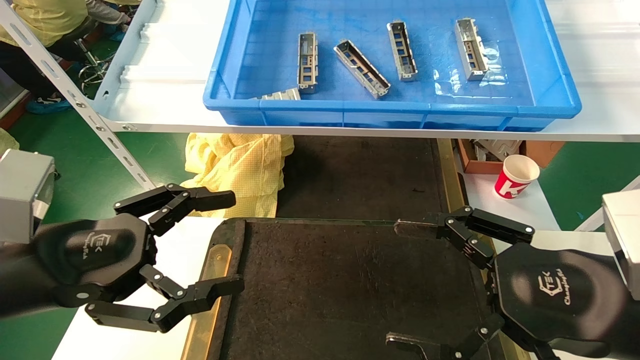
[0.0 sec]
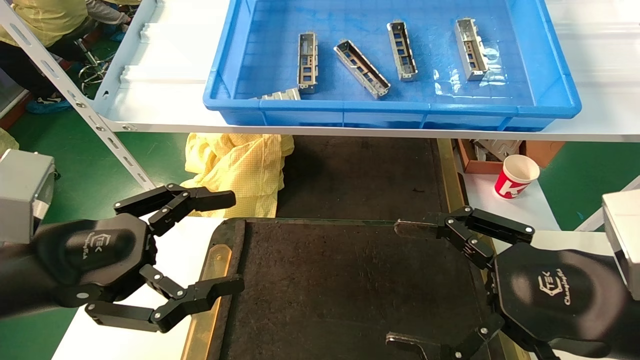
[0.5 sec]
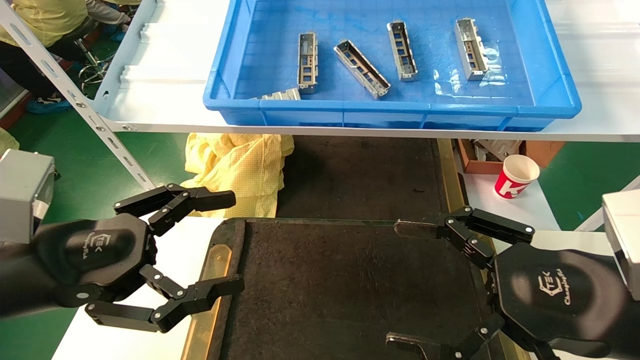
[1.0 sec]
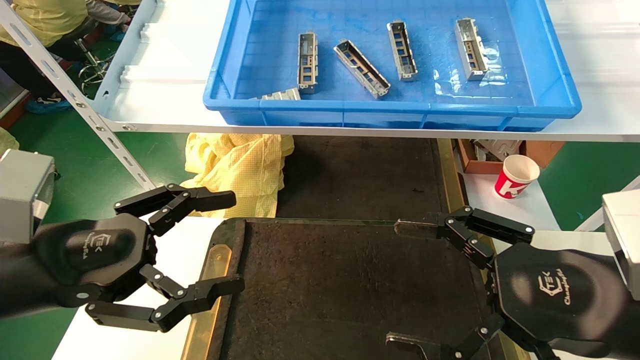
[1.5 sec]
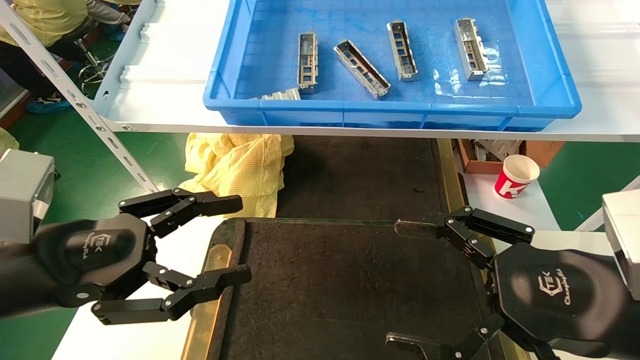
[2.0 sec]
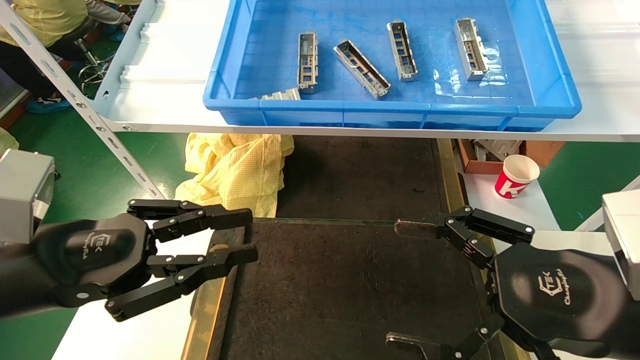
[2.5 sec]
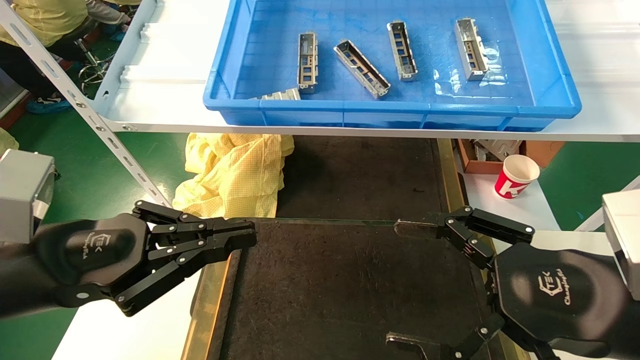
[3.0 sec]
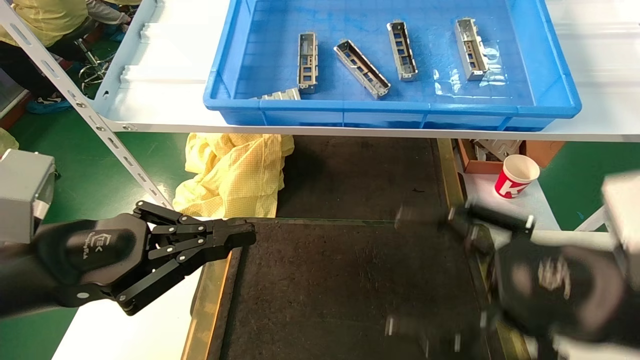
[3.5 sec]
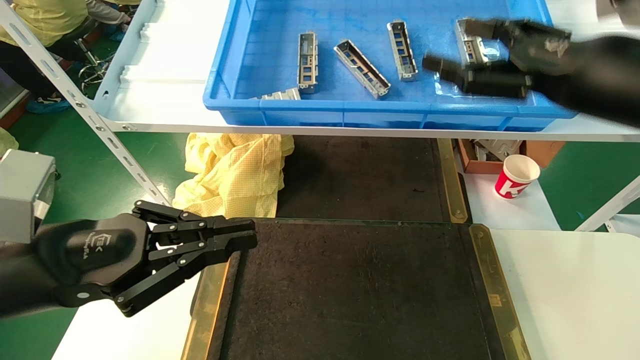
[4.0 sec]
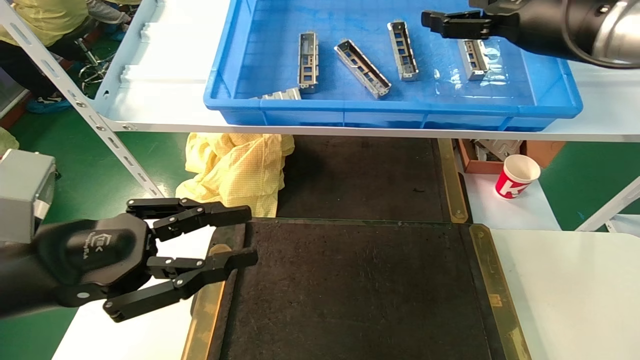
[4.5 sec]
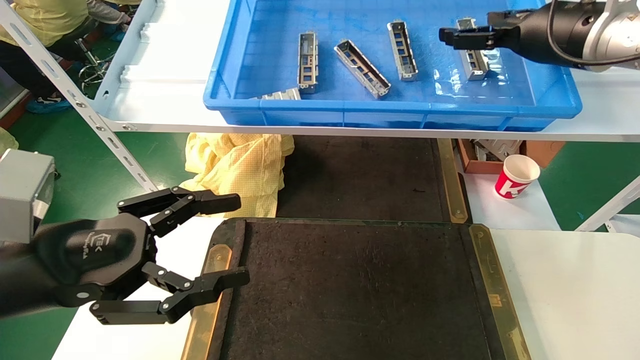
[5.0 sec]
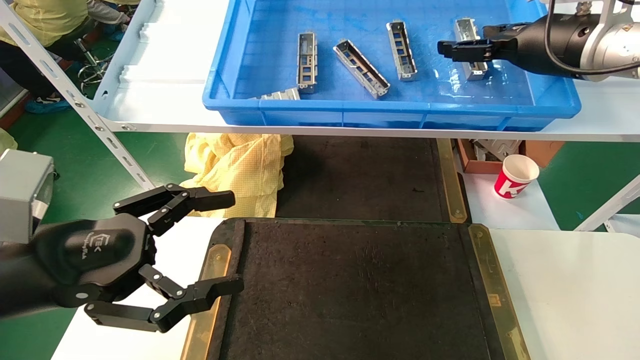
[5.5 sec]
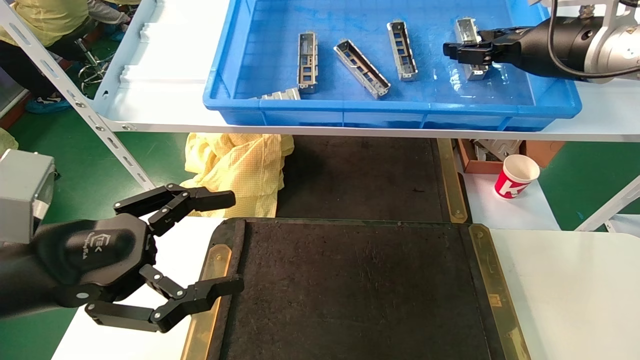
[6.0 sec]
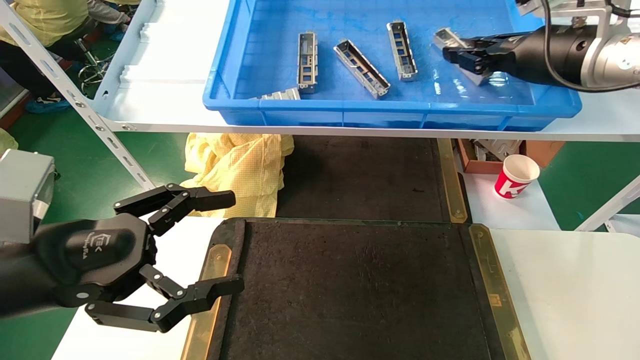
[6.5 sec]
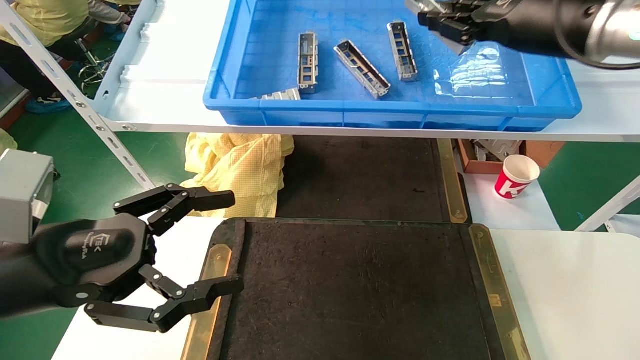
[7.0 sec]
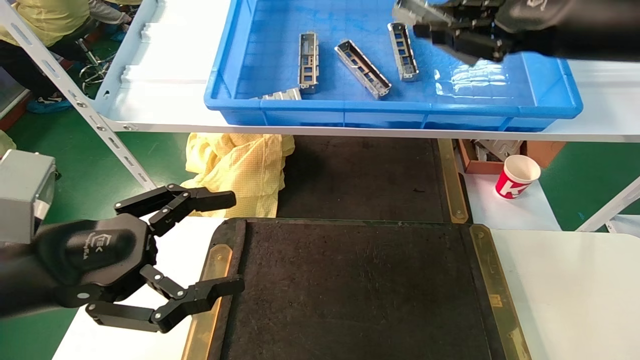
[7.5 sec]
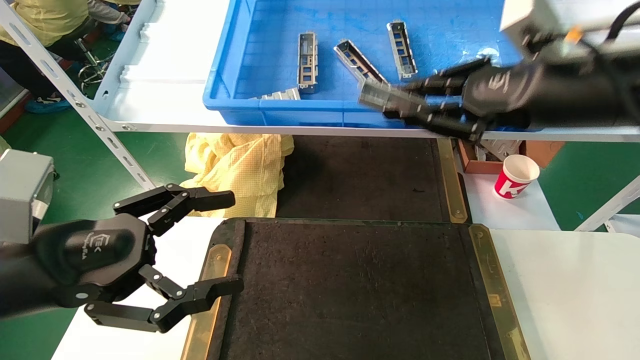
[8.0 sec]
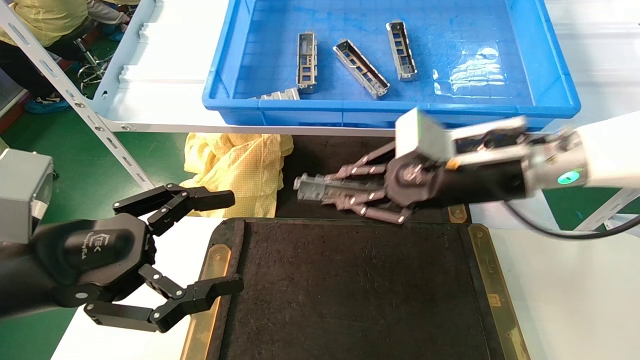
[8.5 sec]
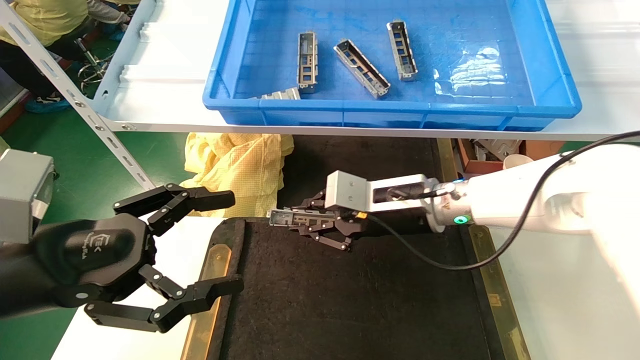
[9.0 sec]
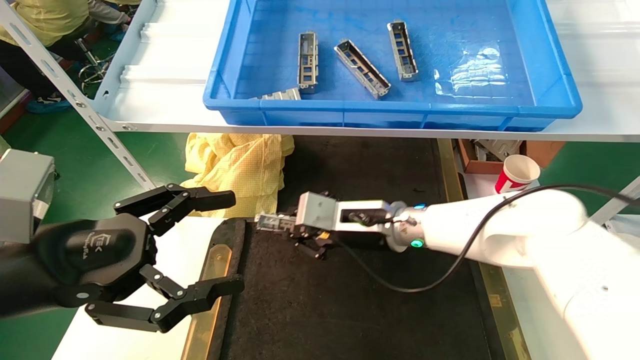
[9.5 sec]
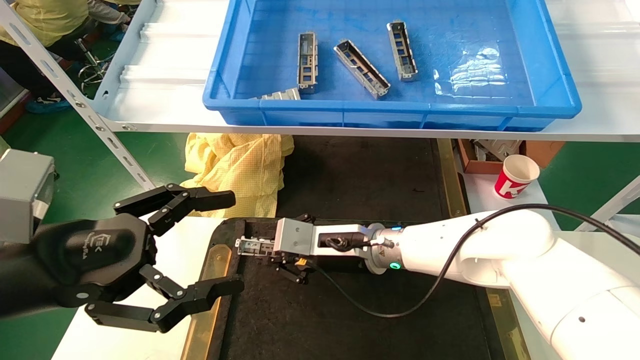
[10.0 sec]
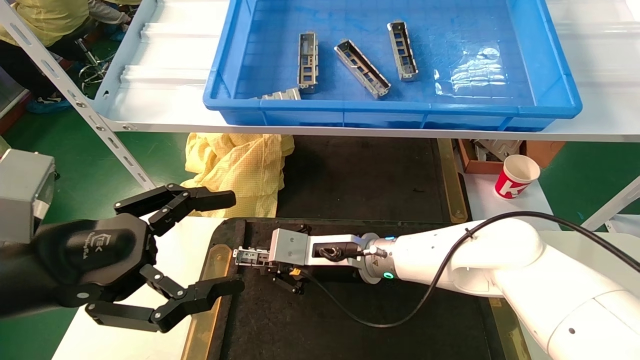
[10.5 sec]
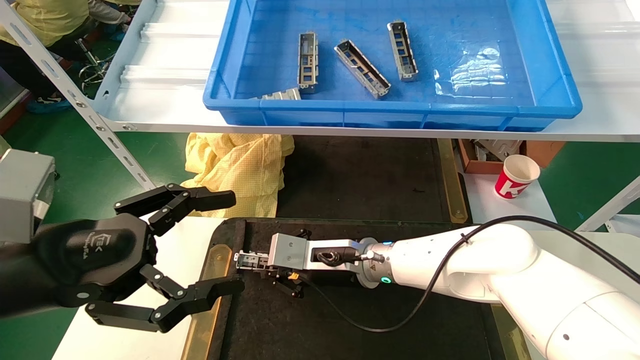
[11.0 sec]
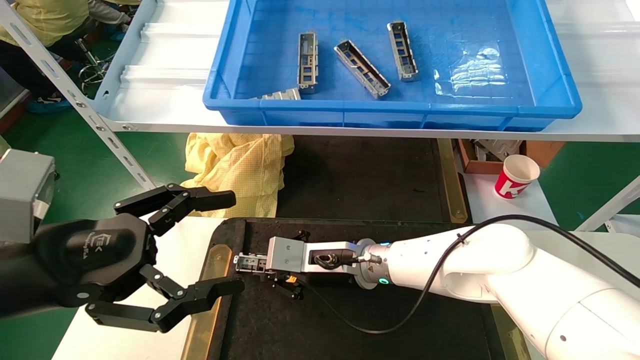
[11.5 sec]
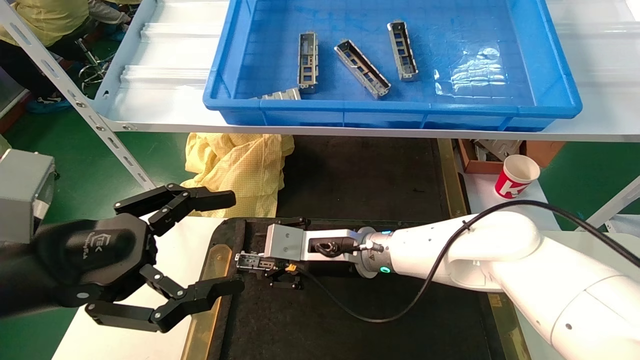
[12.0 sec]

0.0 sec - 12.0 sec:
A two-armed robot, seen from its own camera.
Task of the whole recording: grasp the part and place them on the black container.
Step, 4.0 sec - 7.0 sec: Pick up and lift the front USB bracket from the feeding area.
0.0 sec - 2.0 sec: Neither gripper changes place.
2.0 sec - 4.0 sec: The left gripper closes its fingers. The right gripper heads upward and forward, covering approximately 20 cm.
4.0 sec - 6.0 sec: The left gripper opens its fingers; the right gripper shifts about 10 cm forward.
6.0 sec - 8.0 sec: The right gripper heads backward, covering approximately 10 cm, and closes its fingers.
8.0 sec - 10.0 sec: The right gripper is displaced downward, to the left and forward by some 35 cm.
10.0 sec - 12.0 sec: The grippers make only small movements.

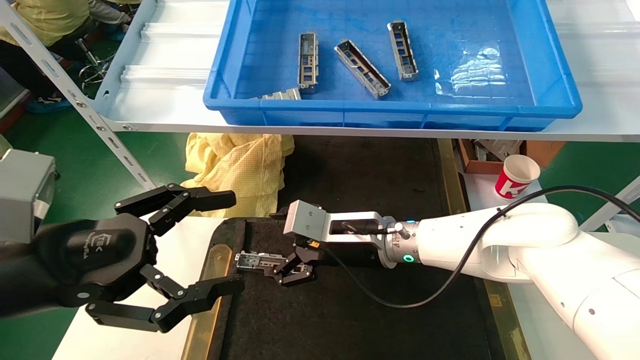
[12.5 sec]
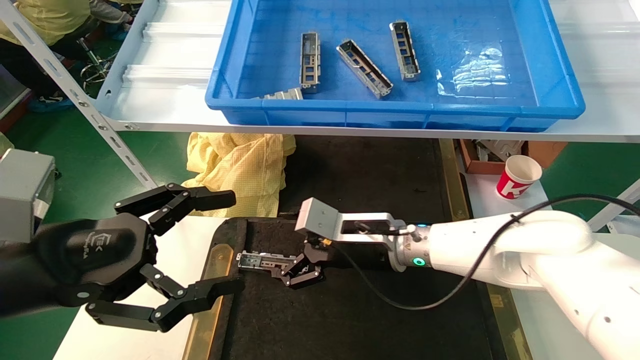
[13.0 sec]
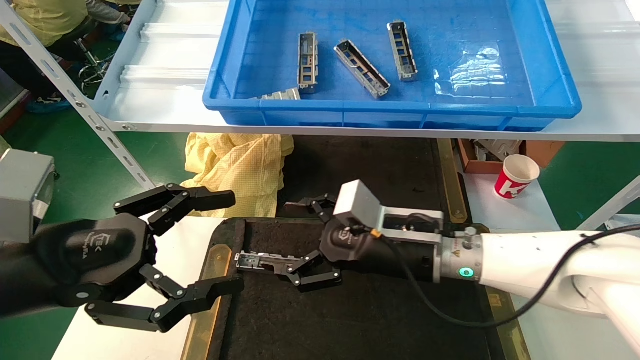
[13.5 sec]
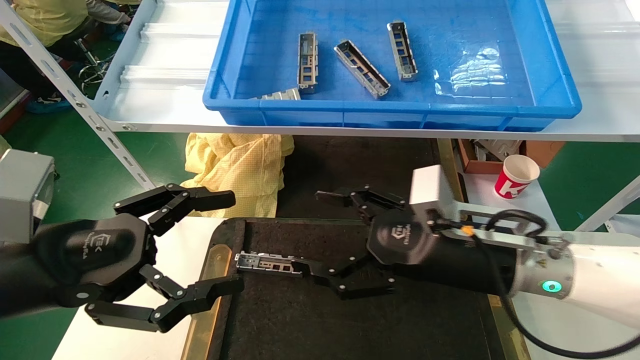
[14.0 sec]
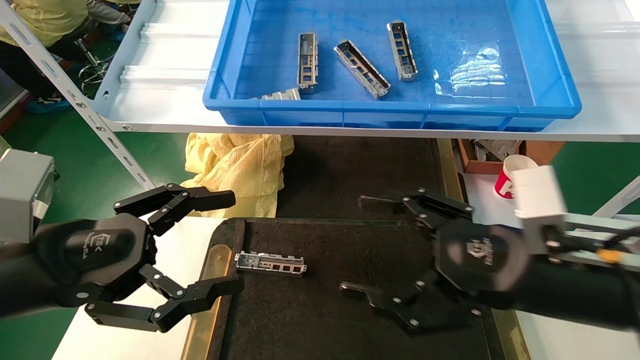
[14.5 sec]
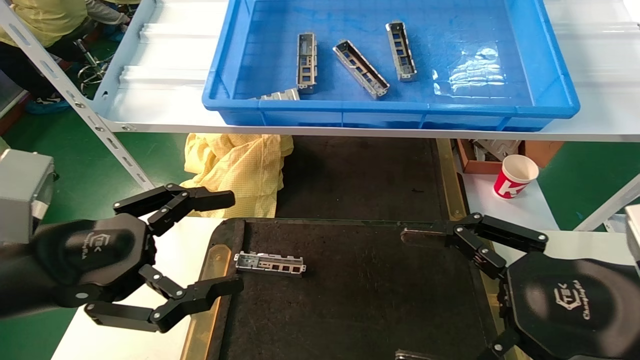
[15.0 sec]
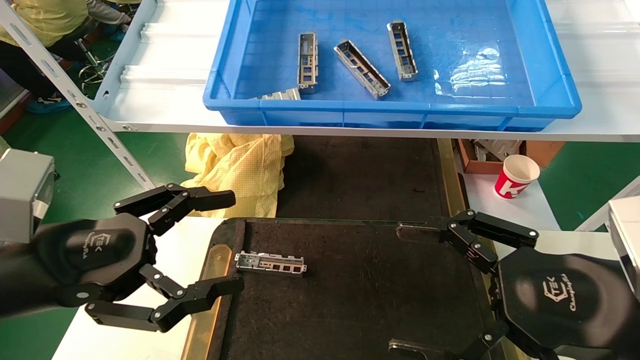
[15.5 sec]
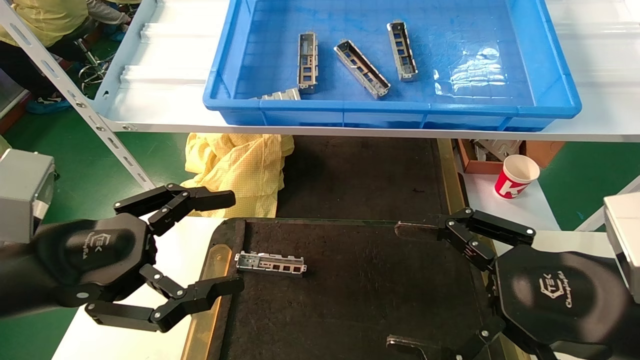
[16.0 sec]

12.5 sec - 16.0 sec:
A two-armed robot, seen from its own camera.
Task of the whole recording: grasp the part and place them on the black container.
12.5 sec - 14.5 sec: The right gripper heads to the right and backward, covering roughly 25 cm.
14.5 sec - 16.0 sec: The right gripper is displaced backward by about 5 cm.
